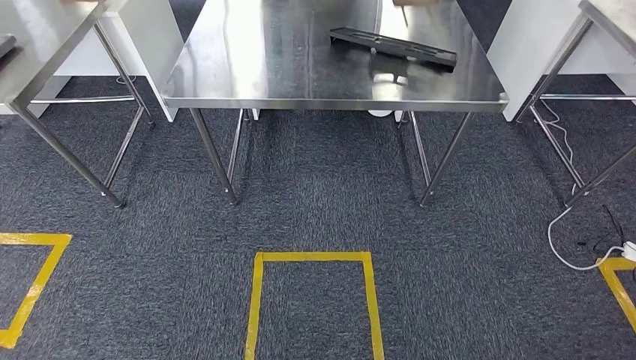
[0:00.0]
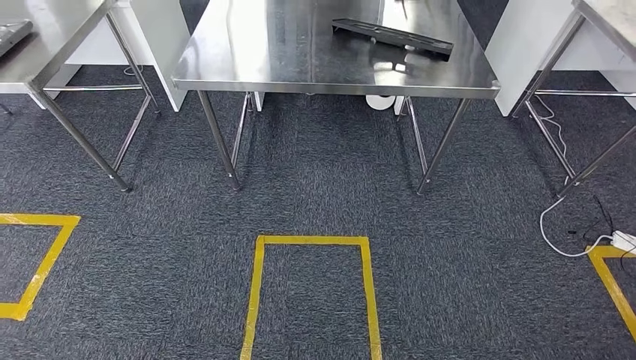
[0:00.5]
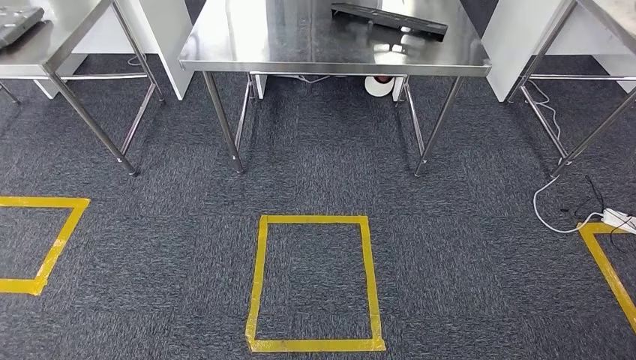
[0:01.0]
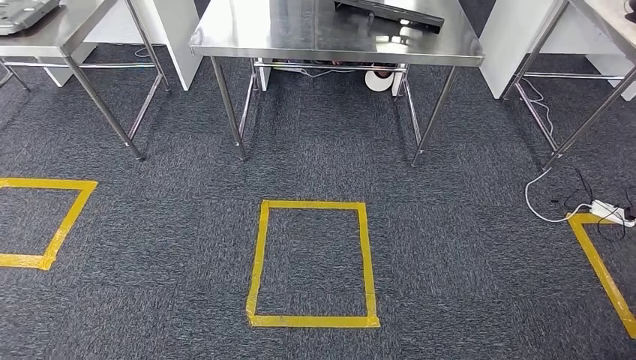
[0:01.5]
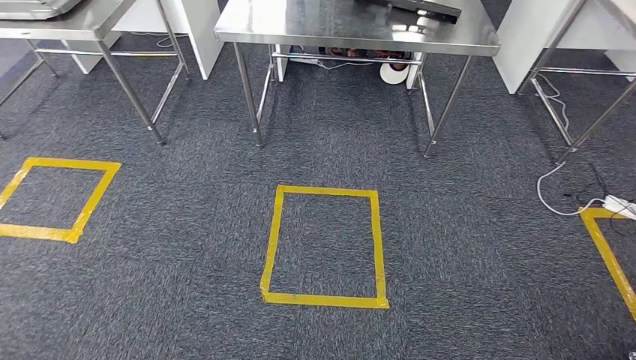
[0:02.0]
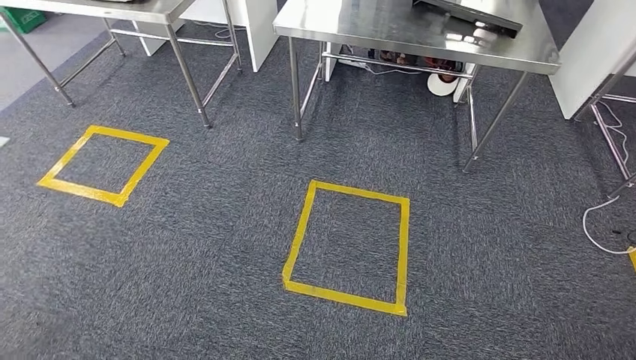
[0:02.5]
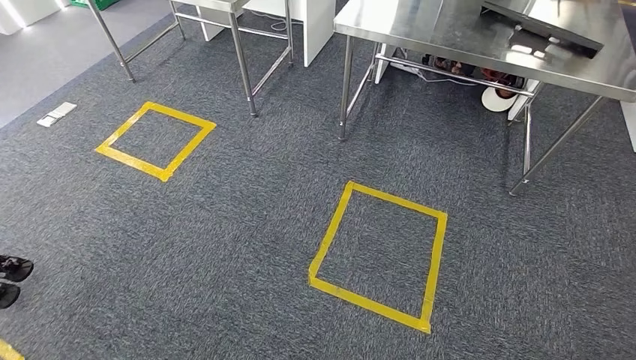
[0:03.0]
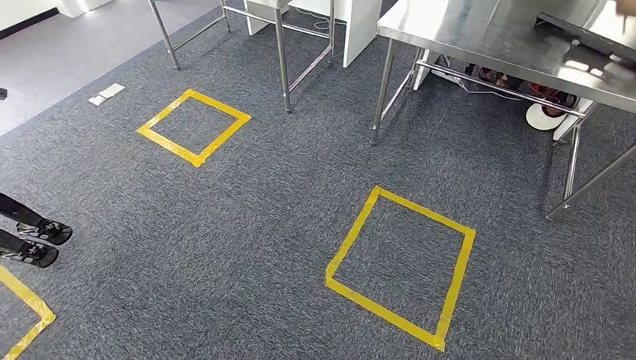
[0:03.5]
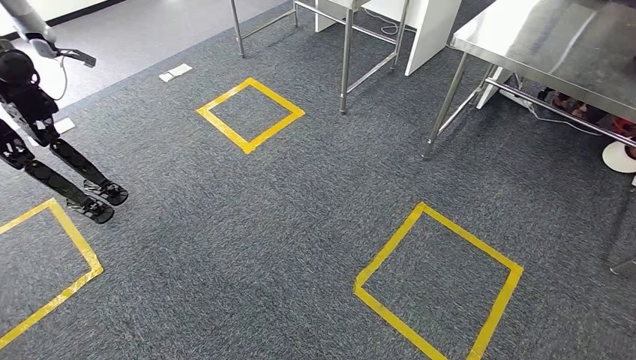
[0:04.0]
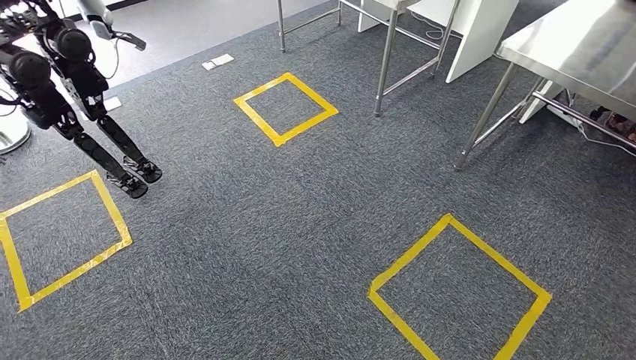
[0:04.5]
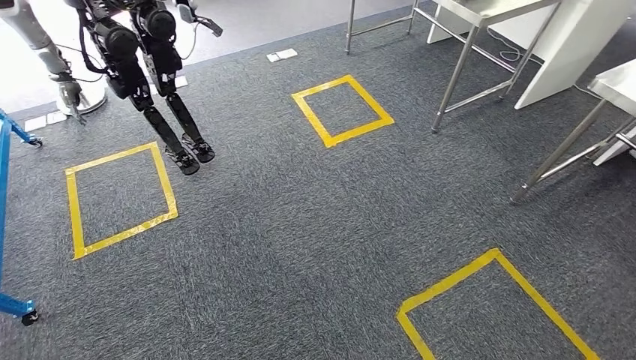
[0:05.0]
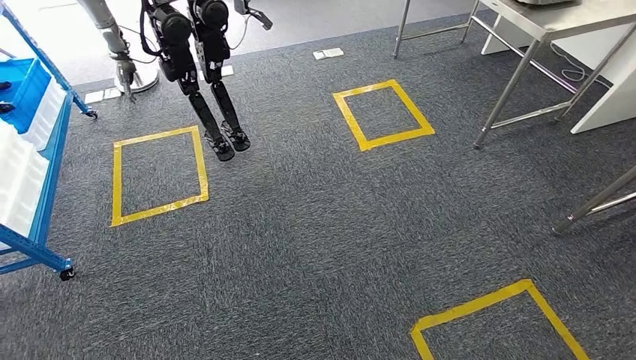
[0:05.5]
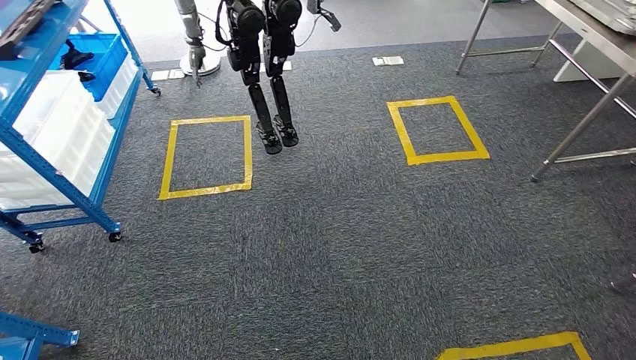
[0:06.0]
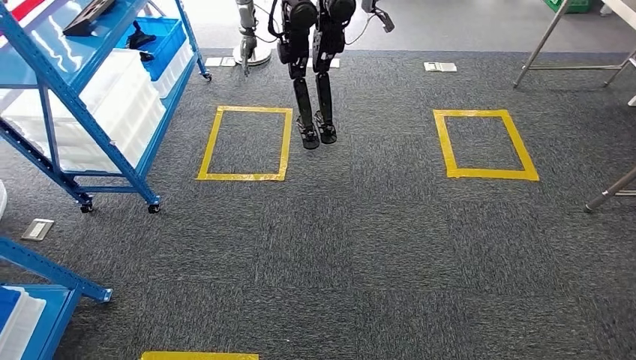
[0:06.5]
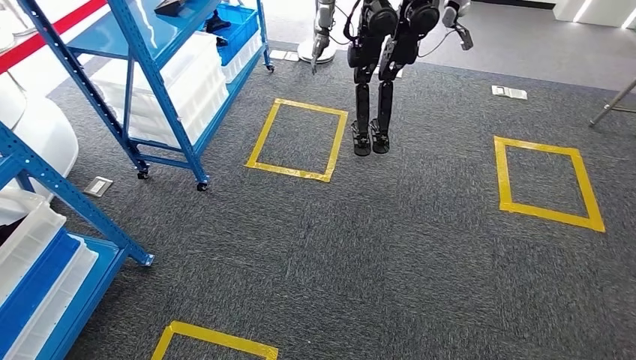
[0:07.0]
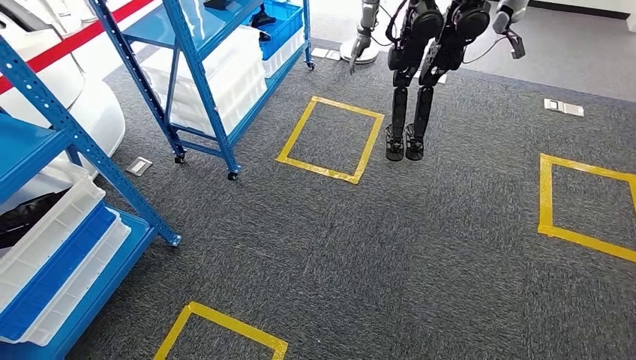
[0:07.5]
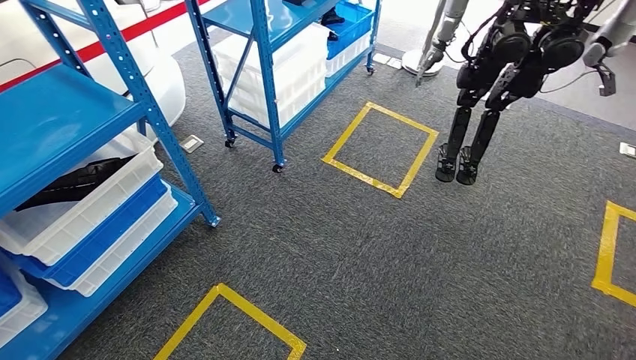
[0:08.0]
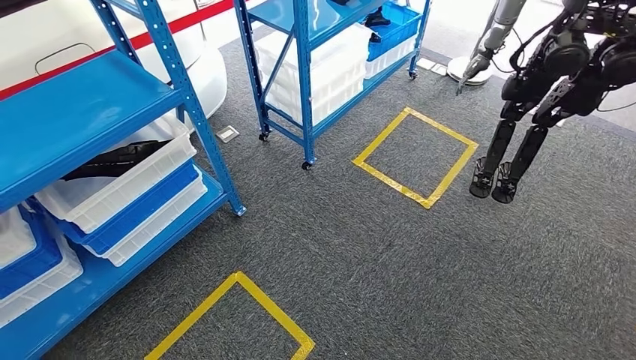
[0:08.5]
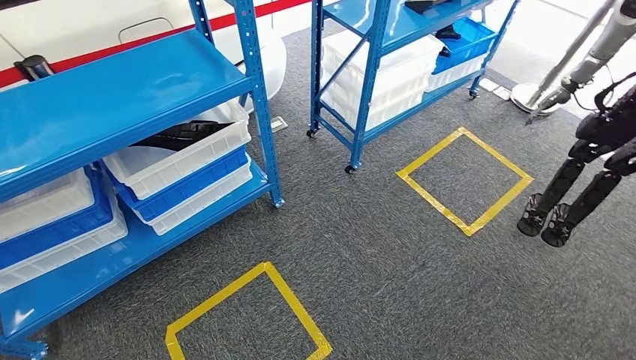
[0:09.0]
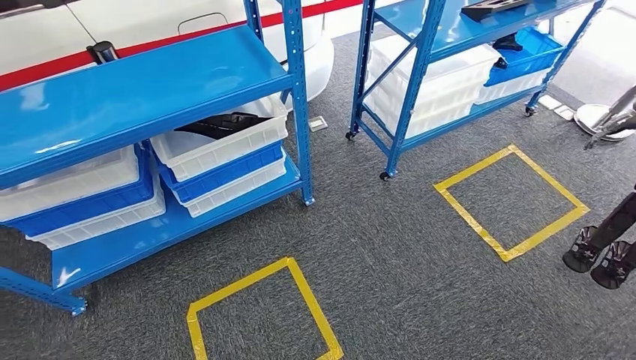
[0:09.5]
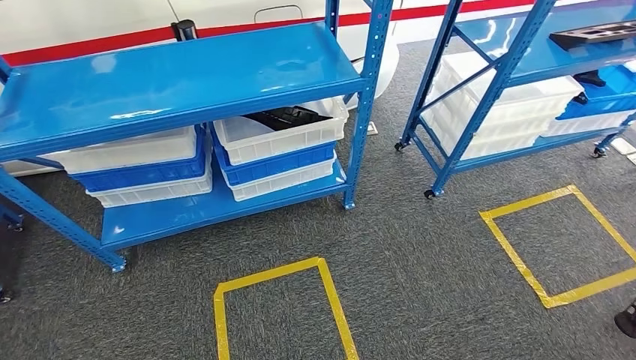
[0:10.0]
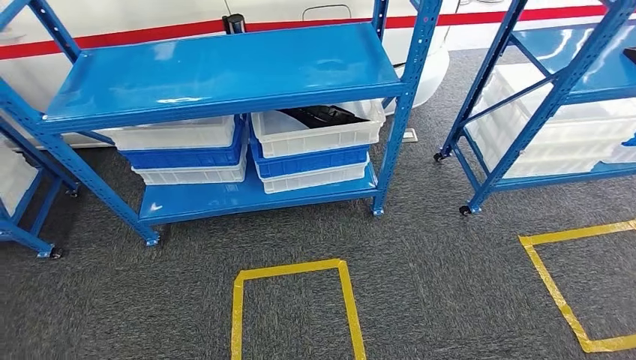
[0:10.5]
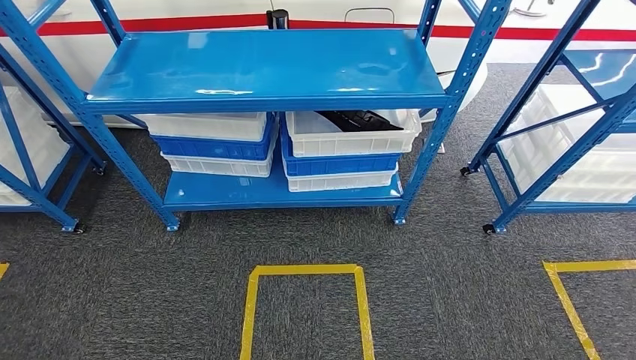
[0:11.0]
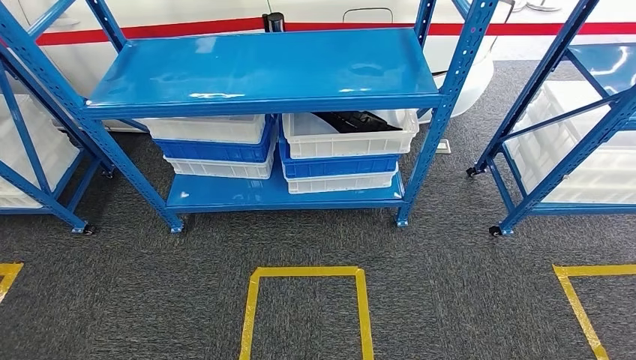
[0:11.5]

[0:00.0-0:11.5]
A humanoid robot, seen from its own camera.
Step, 0:00.0 to 0:11.5: Move to the initial position of the shelf.
